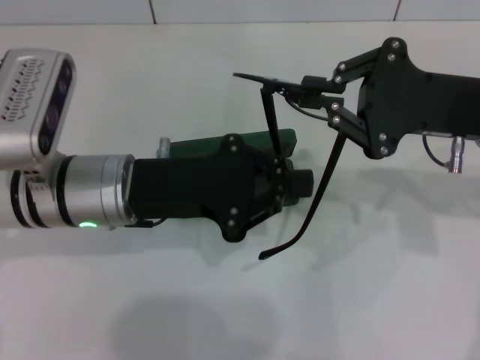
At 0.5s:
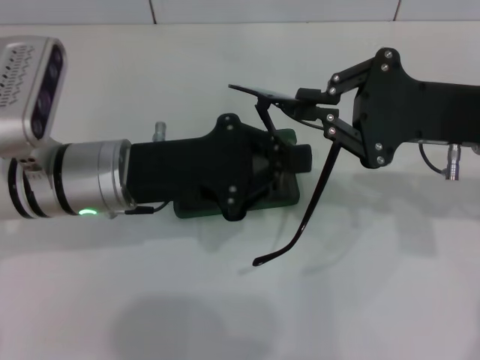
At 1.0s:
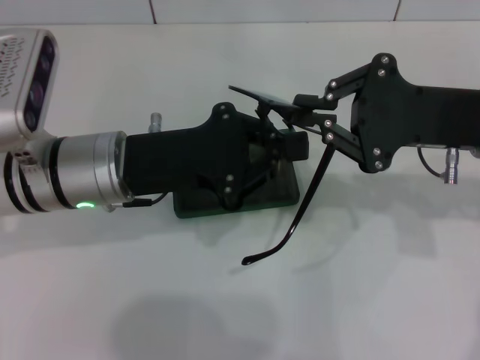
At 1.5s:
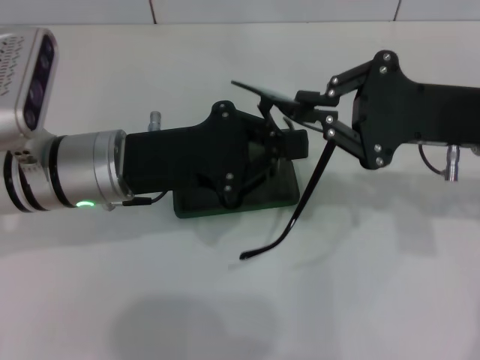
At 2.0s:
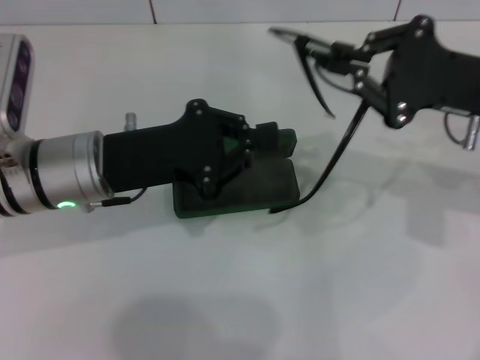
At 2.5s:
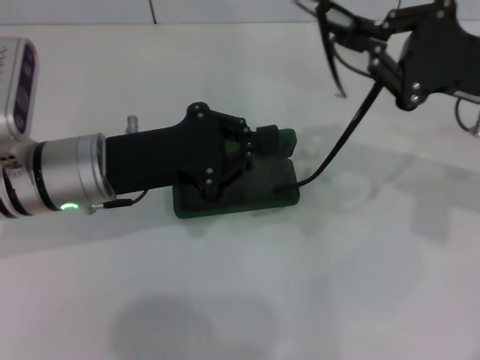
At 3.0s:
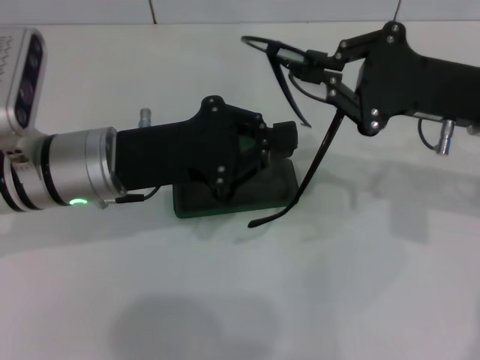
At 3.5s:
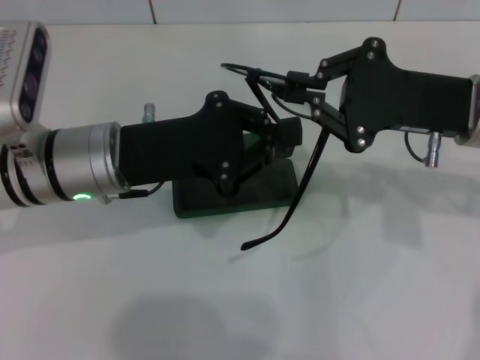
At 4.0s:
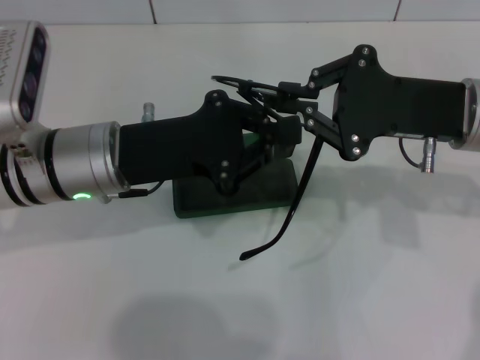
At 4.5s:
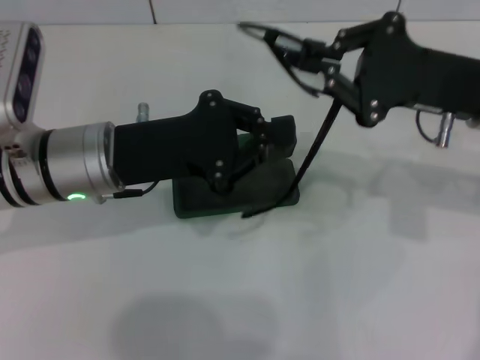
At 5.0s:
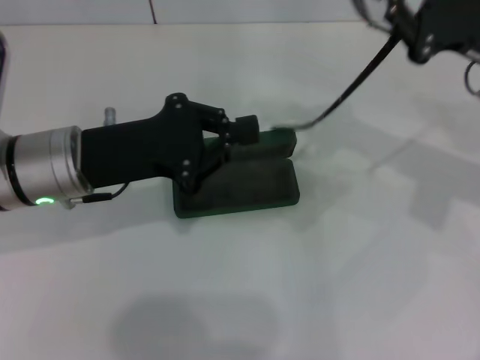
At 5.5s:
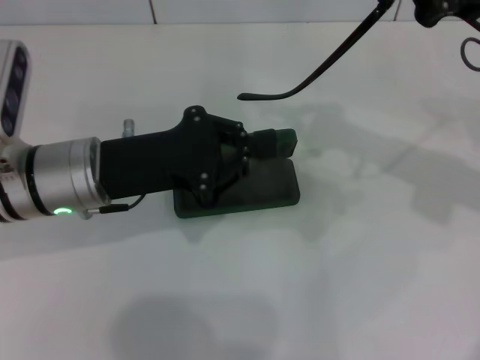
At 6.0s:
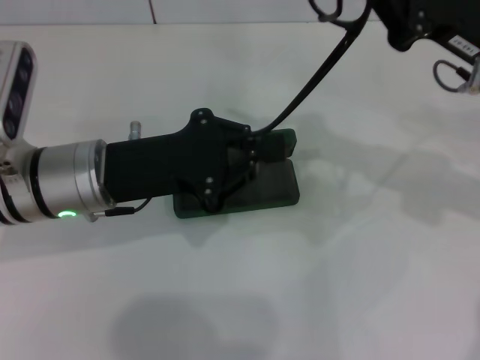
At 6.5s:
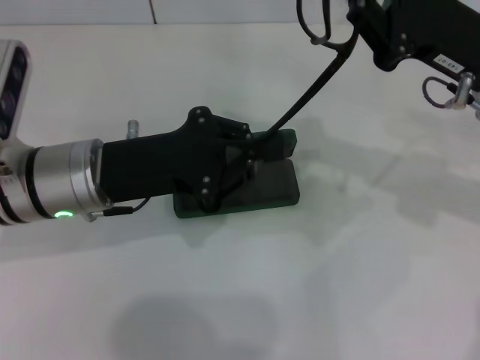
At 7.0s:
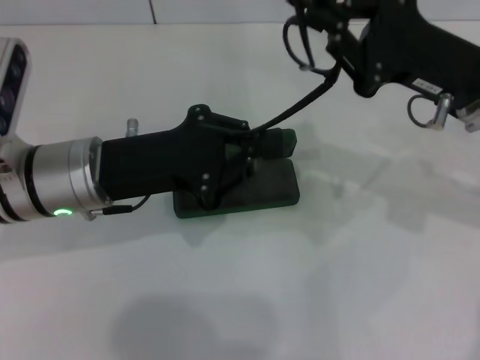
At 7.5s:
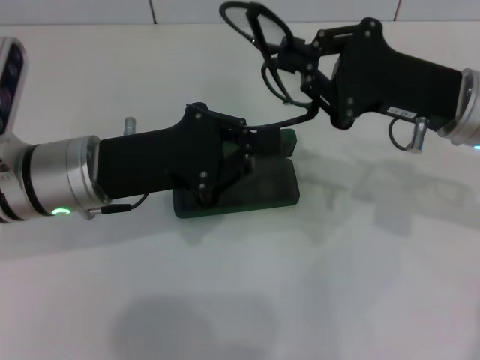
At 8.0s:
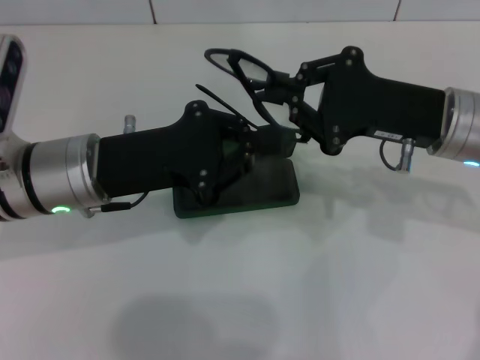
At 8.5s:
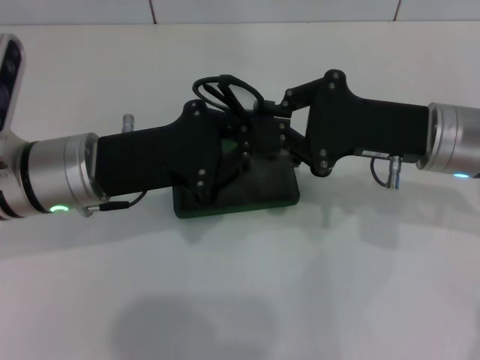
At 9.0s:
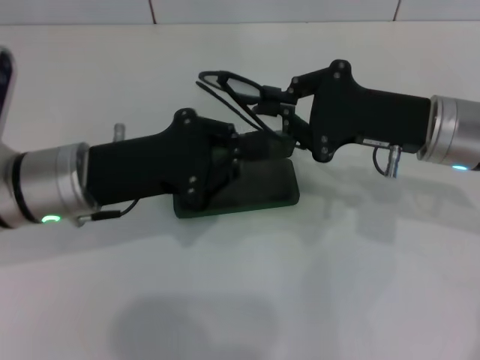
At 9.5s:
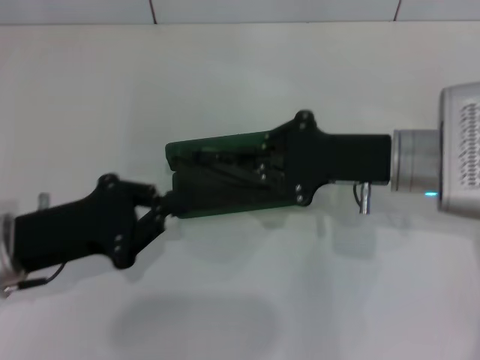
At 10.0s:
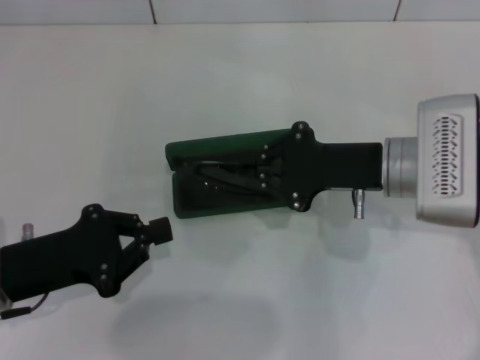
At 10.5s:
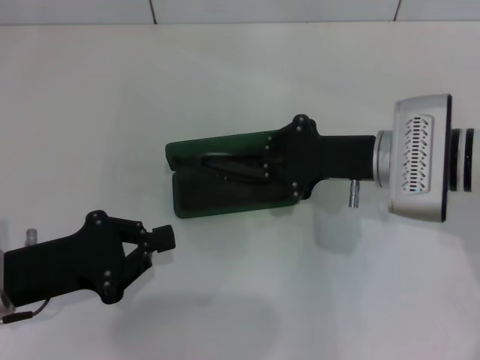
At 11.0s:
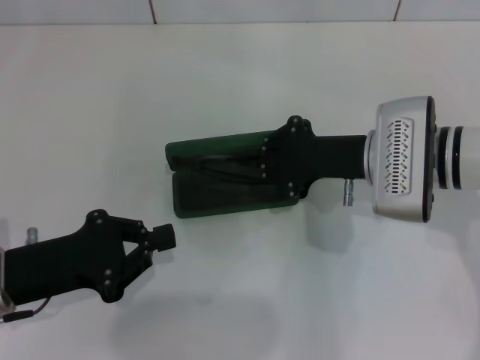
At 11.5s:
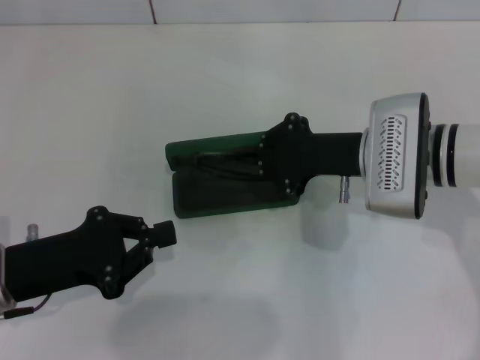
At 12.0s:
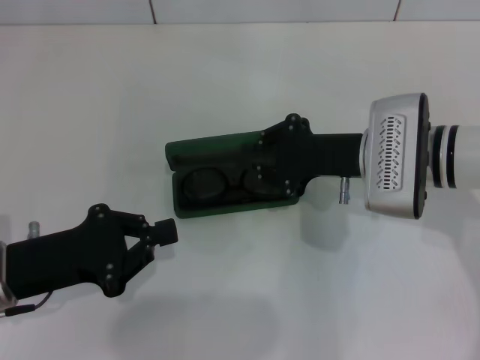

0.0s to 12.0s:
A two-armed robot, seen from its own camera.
Step, 0.0s to 8.5s: Fold the frame with your left hand.
Step, 9.0s to 12.0s: Put the glasses into the case with your right hand.
6.0s to 8.0s: The right gripper moves roughly 5 cm.
8.0s to 10.0s: The left gripper shifts approximately 15 cm to the left, backward and downward. The right gripper changes place by some 5 cm.
10.0s to 12.0s: The grippers make only small movements.

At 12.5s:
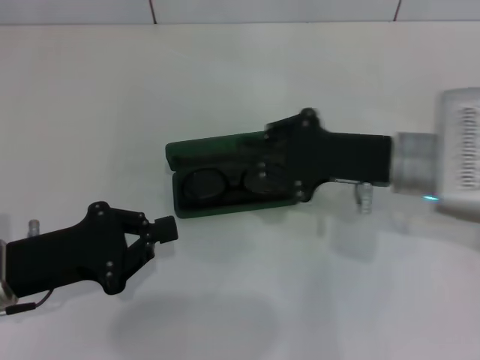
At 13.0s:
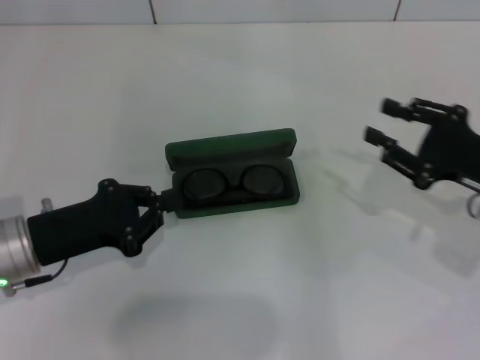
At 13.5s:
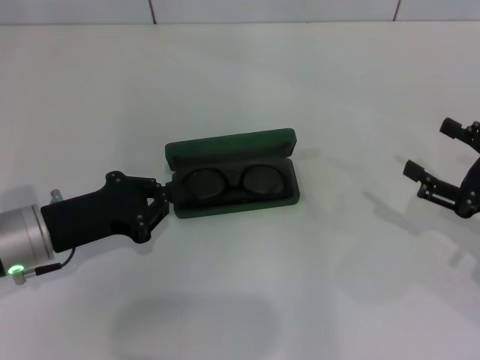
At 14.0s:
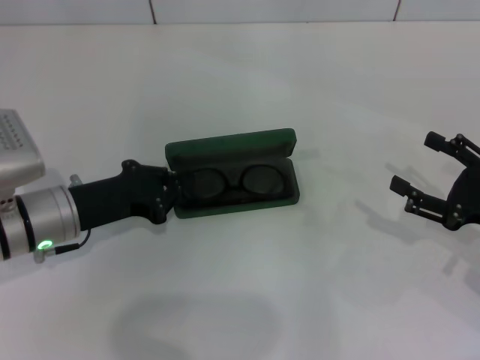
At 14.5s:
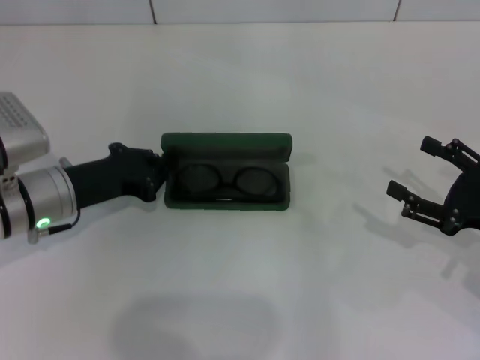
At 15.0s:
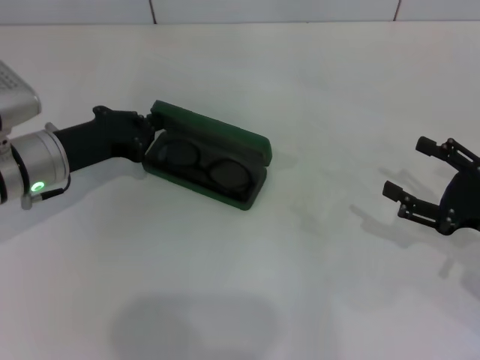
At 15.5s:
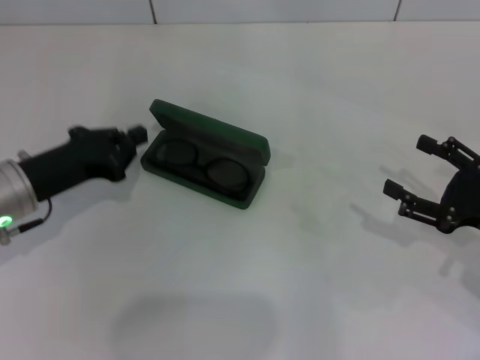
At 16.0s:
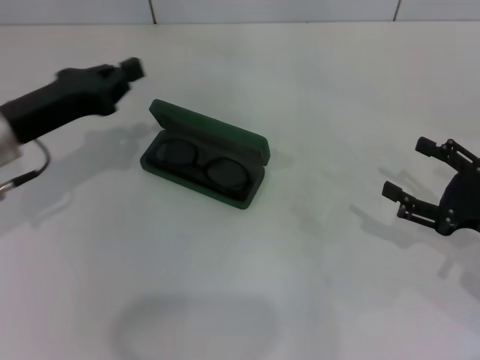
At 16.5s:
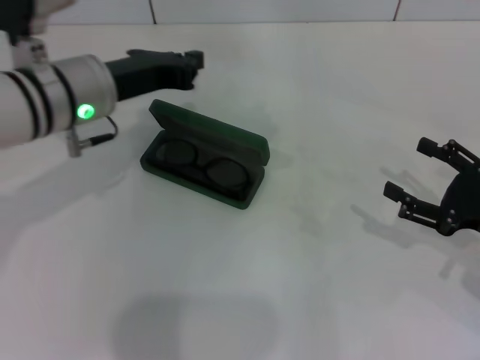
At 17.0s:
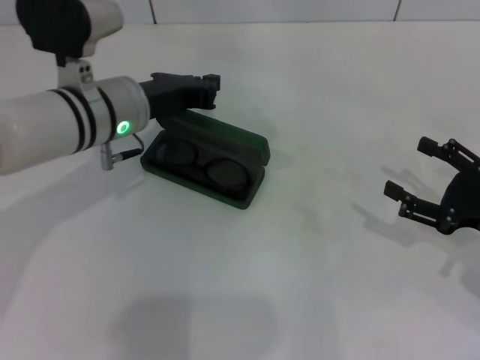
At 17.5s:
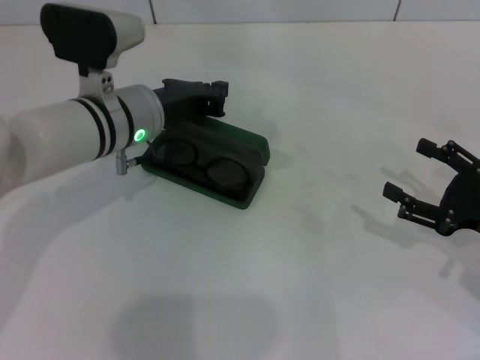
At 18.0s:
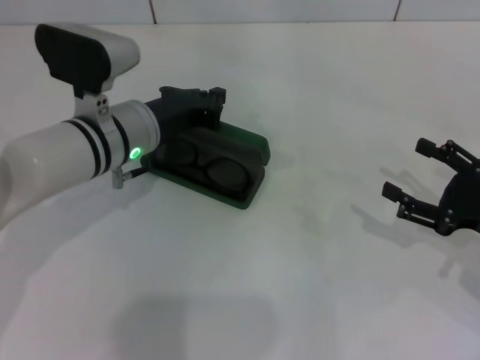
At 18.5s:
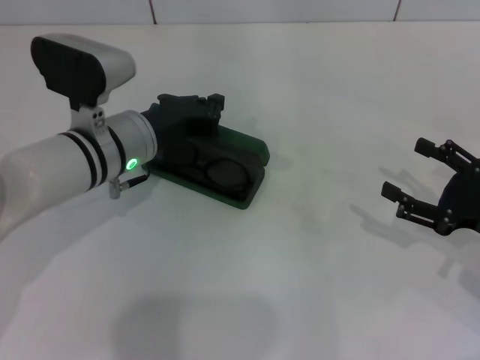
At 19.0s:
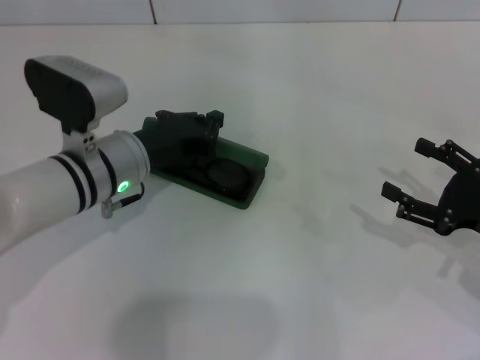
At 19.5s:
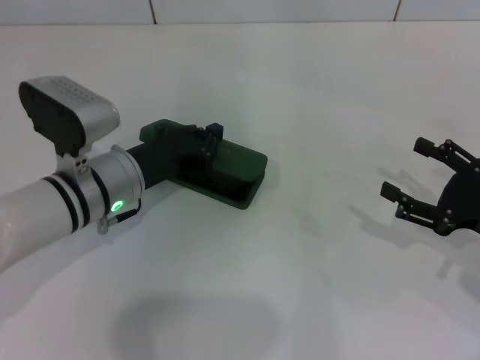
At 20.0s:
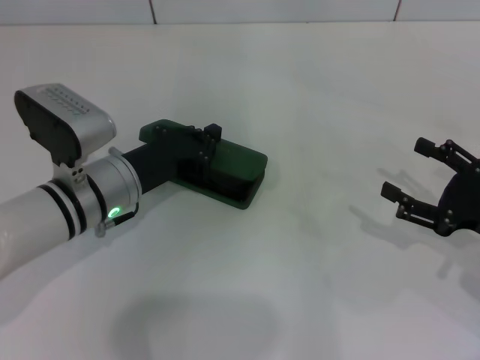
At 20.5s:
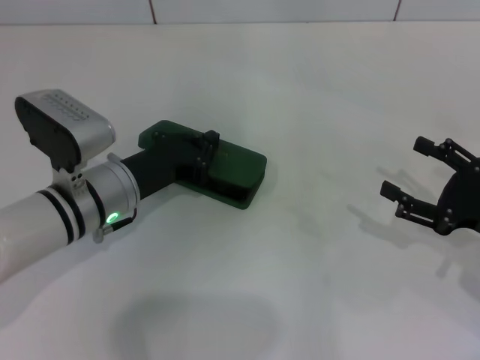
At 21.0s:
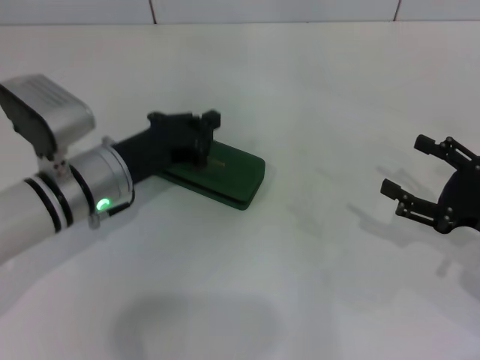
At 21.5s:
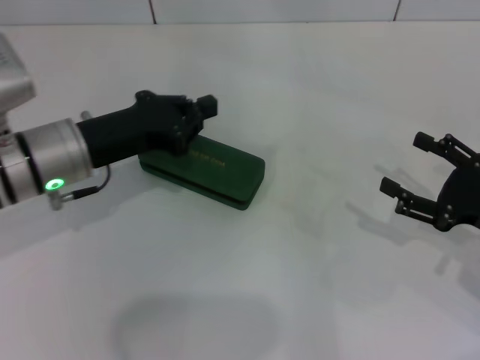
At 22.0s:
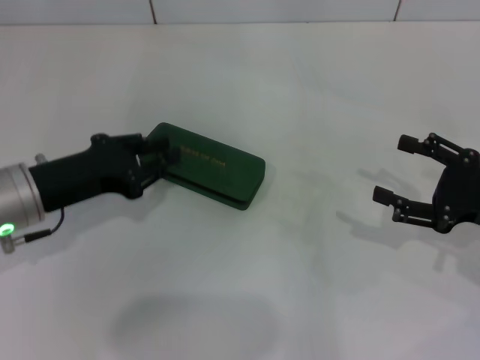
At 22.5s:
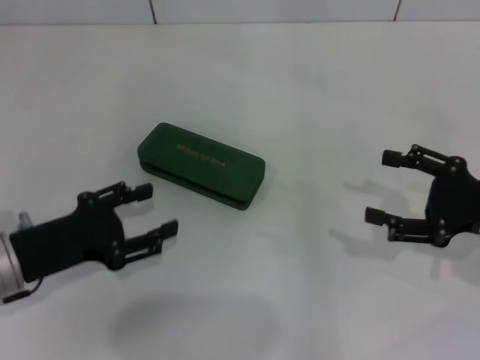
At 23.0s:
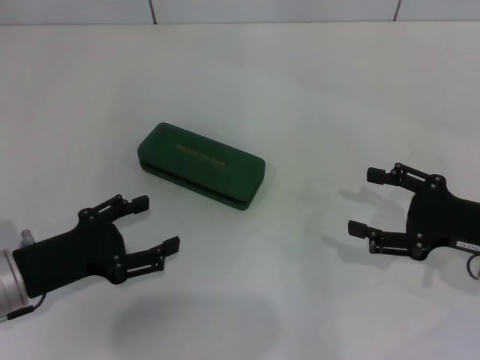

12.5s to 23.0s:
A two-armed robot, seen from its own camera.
Step, 12.5s to 20.0s: Close the glasses case with your left hand.
12.5s to 14.5s: The left gripper shifts some 10 cm forward. Meanwhile the right gripper travels to the right, backward and downward by roughly 15 cm, and opens.
14.5s to 16.5s: The left gripper goes roughly 10 cm upward and to the right.
16.5s to 19.0s: The left gripper travels downward by about 10 cm.
19.0s to 21.0s: The grippers stay close to where they were, moving slightly.
21.0s to 23.0s: The left gripper goes roughly 15 cm backward and to the left, and opens.

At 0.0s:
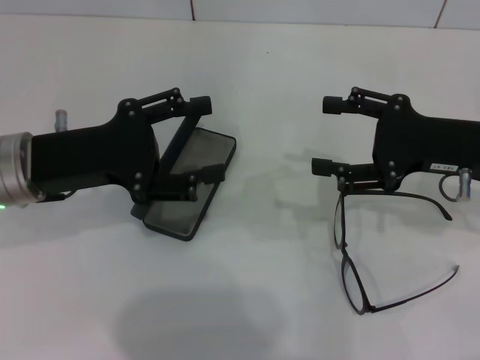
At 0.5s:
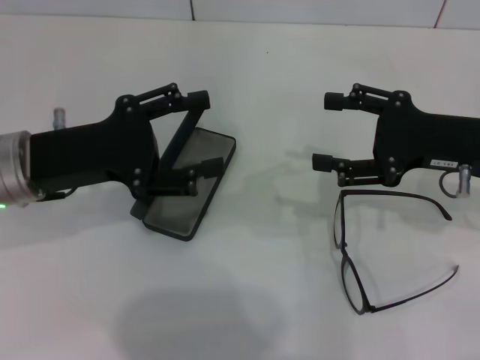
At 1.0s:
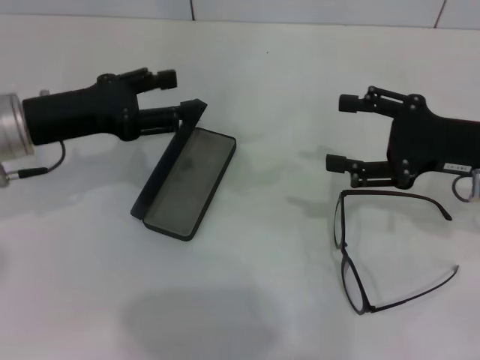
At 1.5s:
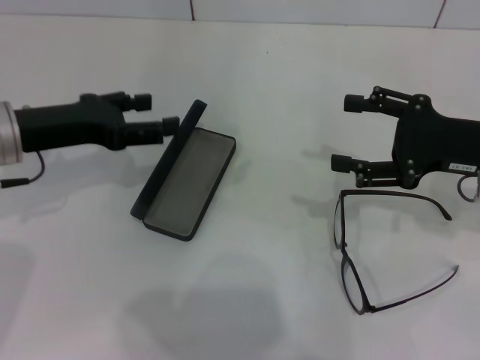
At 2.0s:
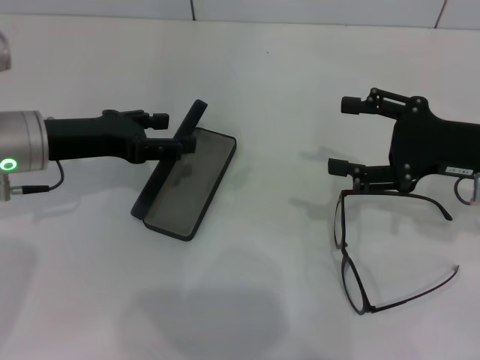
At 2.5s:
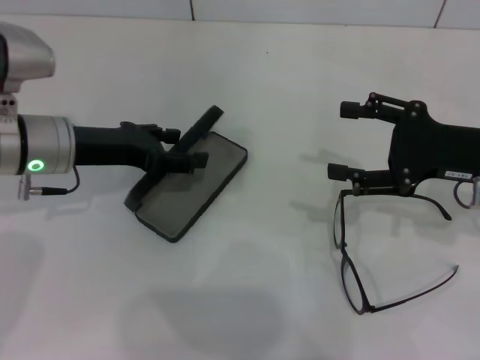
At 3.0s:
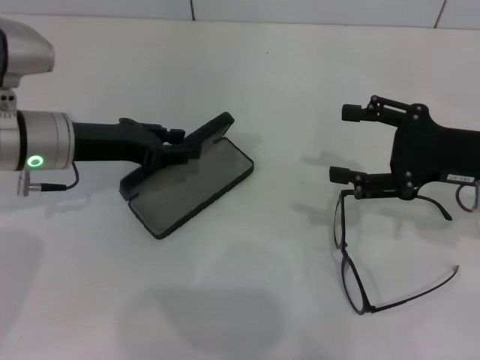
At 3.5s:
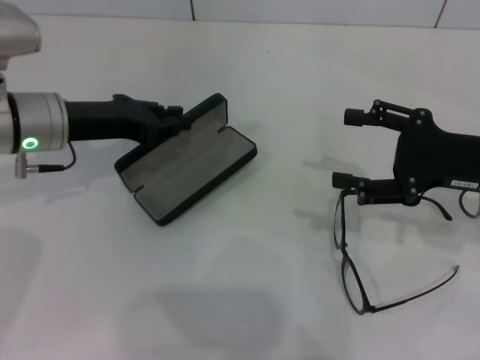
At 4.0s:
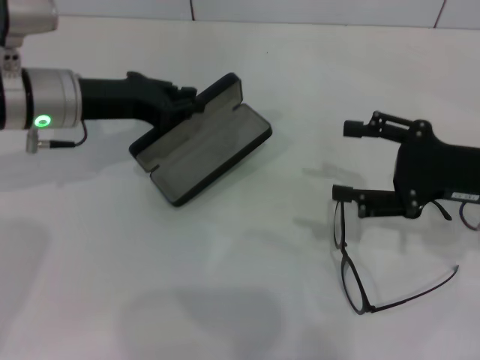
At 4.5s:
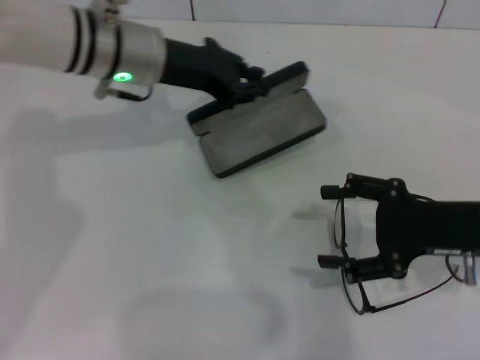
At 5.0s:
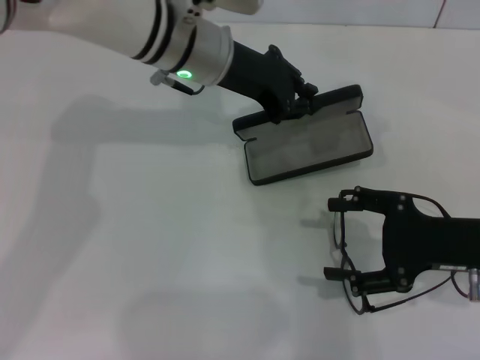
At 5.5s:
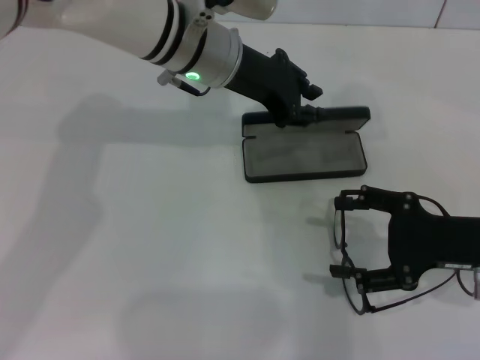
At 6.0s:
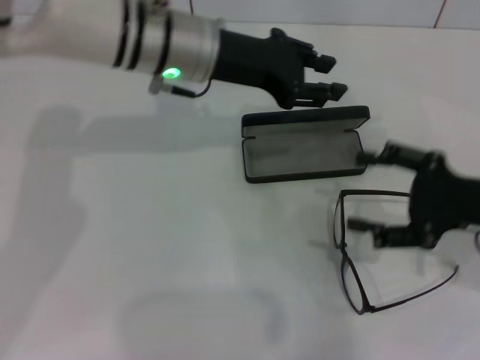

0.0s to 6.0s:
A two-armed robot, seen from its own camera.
Step, 0.0s to 3.0s: Grab the glasses case with your left hand.
Step, 3.5s to 5.0s: Place the glasses case in the center of the table with your left hand.
2.0s to 4.0s: The left gripper changes place by about 5 cm, and closes up.
4.0s to 6.0s: The left gripper travels to the right by approximately 10 cm, and opens up.
